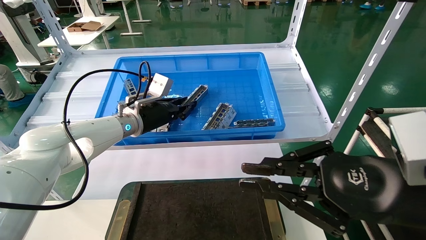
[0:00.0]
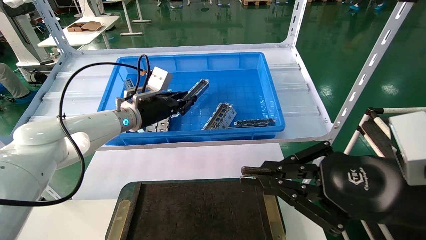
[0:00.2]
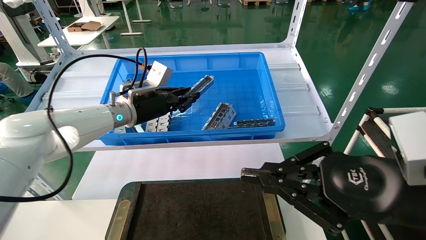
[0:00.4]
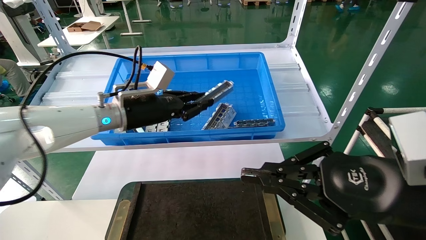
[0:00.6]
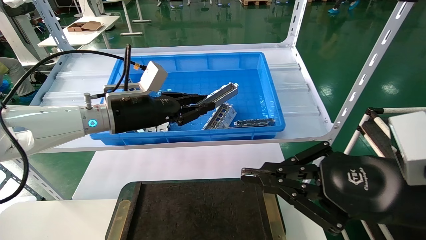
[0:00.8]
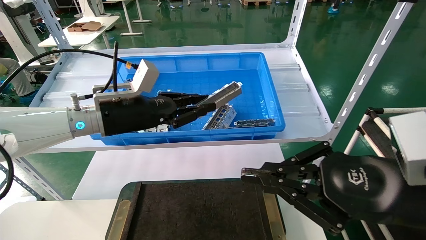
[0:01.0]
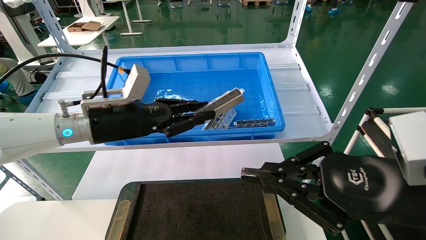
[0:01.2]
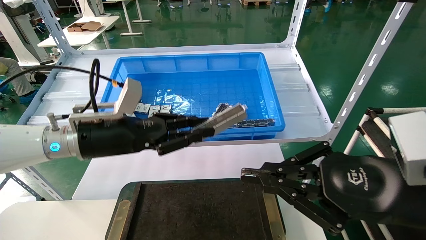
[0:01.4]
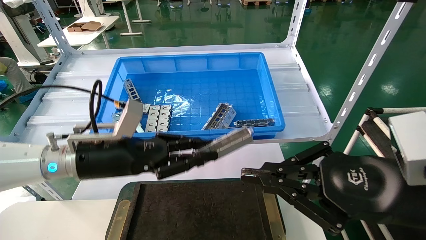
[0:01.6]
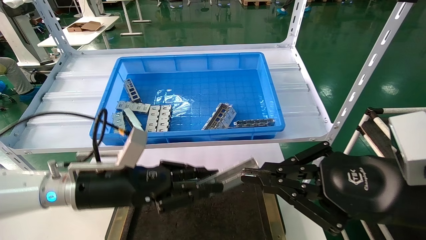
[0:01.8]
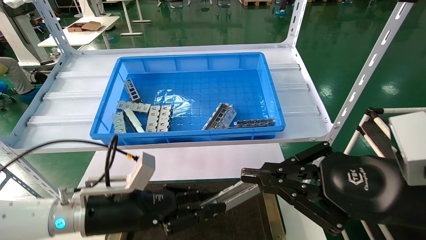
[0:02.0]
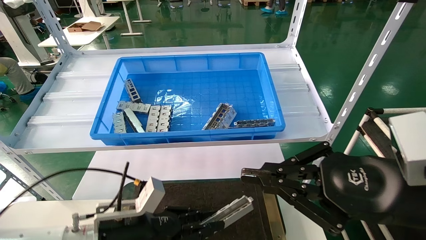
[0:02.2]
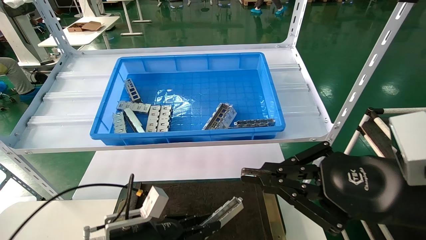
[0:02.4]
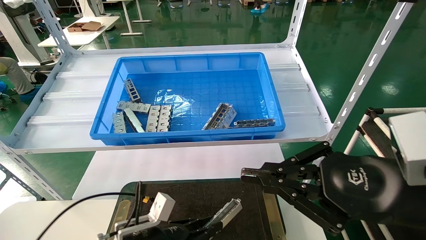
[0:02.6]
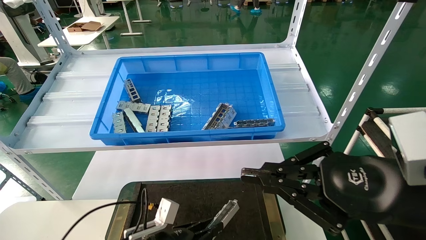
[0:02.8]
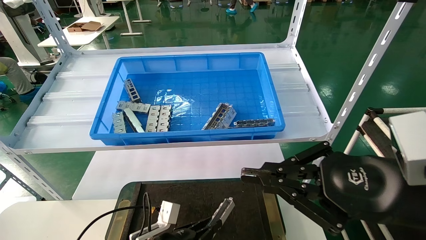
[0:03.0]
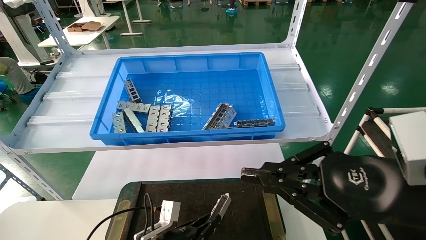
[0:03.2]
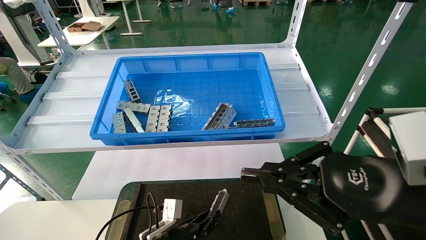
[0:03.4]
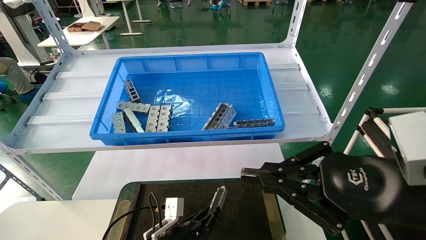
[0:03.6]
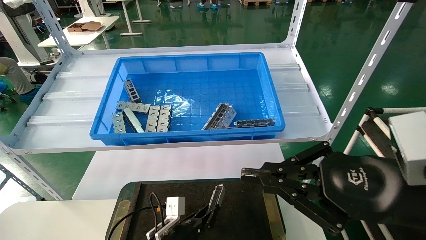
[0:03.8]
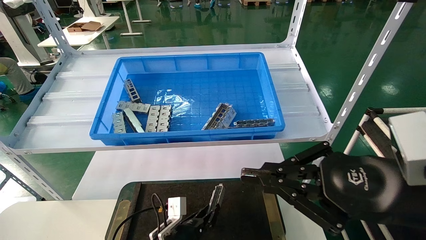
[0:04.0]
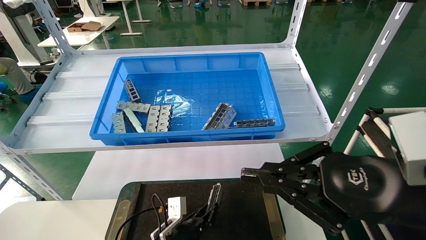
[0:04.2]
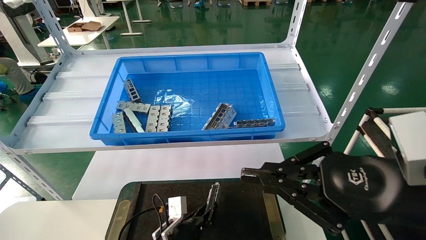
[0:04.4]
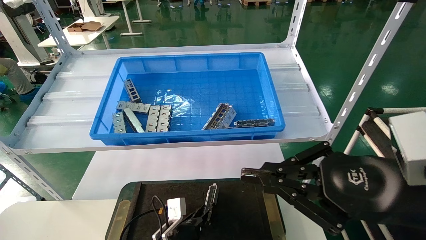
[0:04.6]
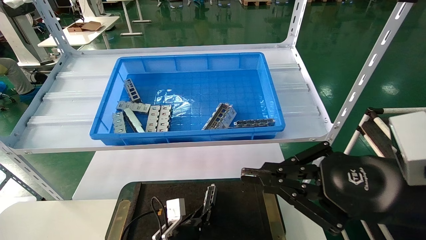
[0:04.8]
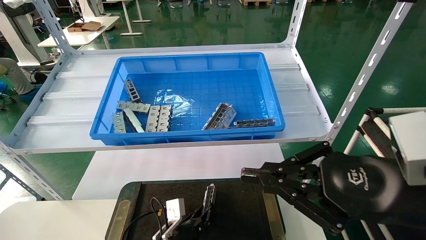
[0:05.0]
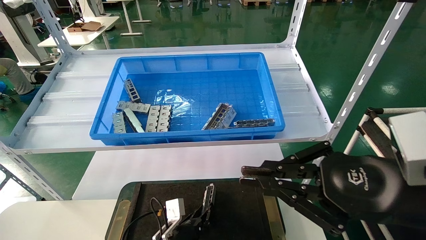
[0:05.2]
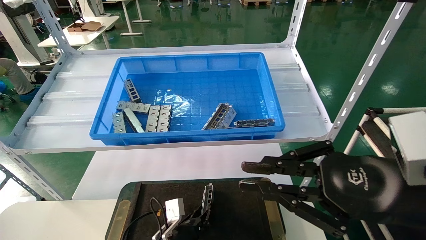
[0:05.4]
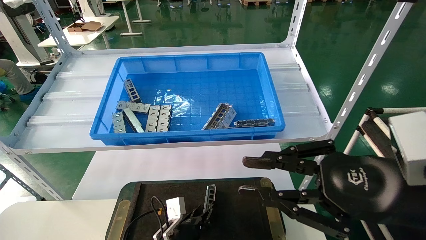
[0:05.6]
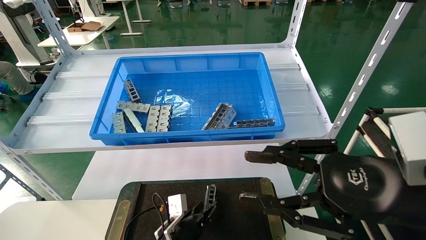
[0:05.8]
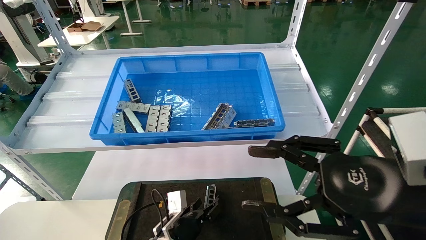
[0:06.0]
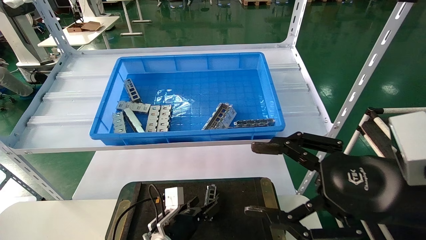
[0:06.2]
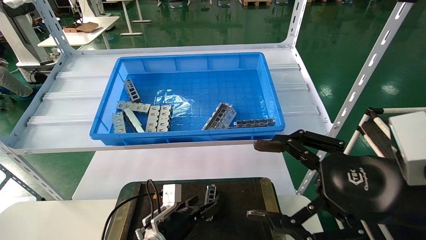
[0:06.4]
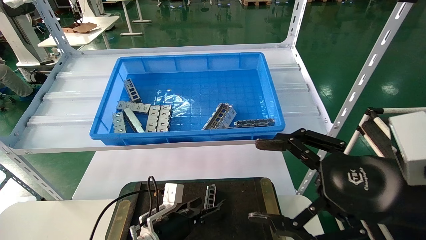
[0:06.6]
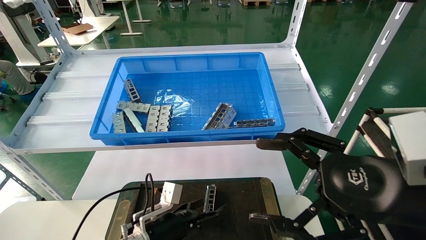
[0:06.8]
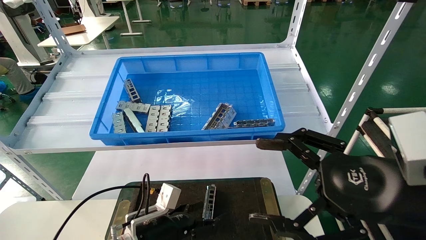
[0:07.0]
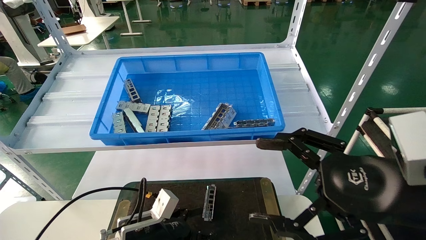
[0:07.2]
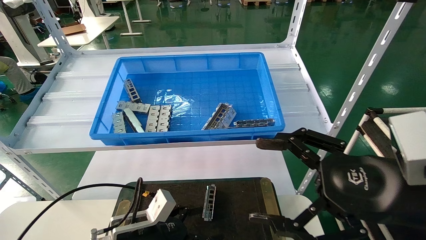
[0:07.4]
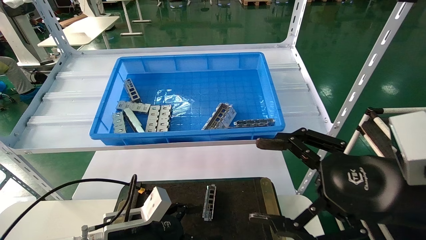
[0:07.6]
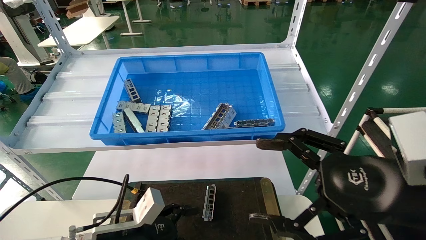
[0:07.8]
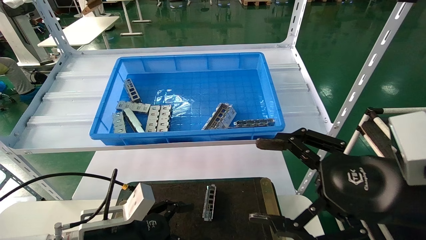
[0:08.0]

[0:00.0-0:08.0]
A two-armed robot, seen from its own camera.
Task of the whole recording: Grasp the part with one hand and place it on the black container.
Step, 0:00.0 to 0:05.4: Place the front USB bracket into the box.
0:00.0 to 0:01.6: The left gripper goes some 15 cm backward.
0:01.6 to 0:03.2: The left gripper is displaced downward by roughly 25 cm.
0:03.2 to 0:04.8: The left gripper moves approximately 5 cm.
0:04.8 to 0:06.4: The left gripper goes approximately 5 cm upward, and opens. The right gripper opens up.
0:06.4 to 0:08.0: The left gripper travels upward, backward and to the left by some 15 cm.
